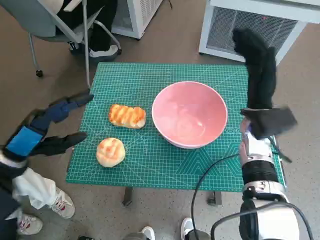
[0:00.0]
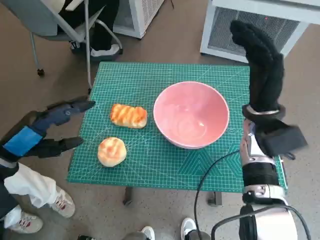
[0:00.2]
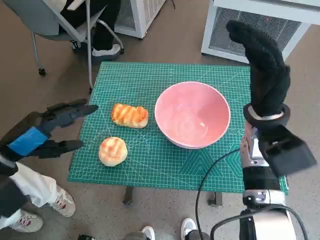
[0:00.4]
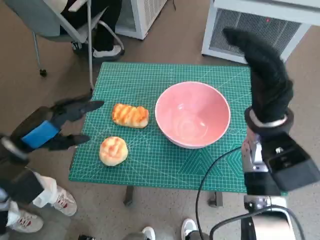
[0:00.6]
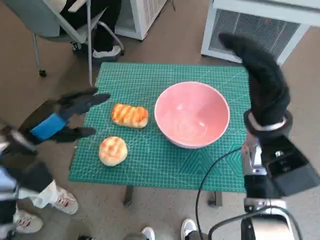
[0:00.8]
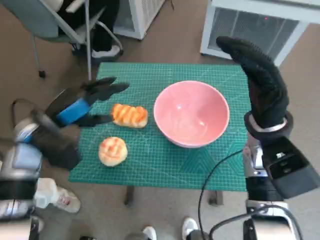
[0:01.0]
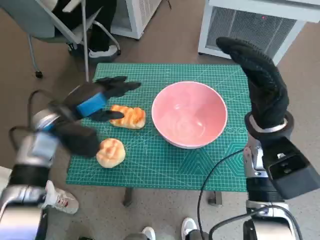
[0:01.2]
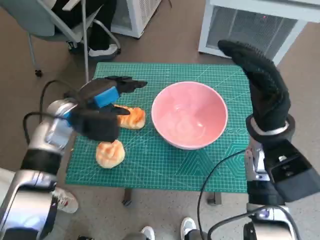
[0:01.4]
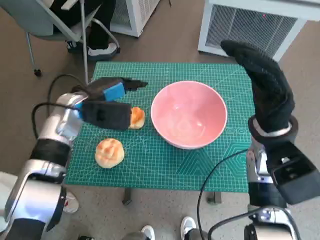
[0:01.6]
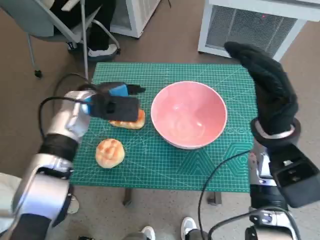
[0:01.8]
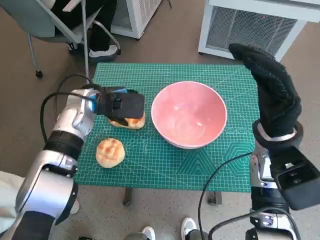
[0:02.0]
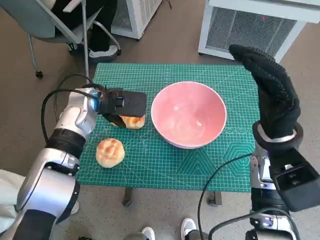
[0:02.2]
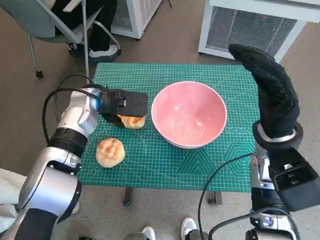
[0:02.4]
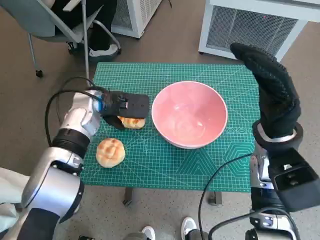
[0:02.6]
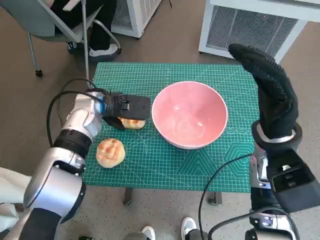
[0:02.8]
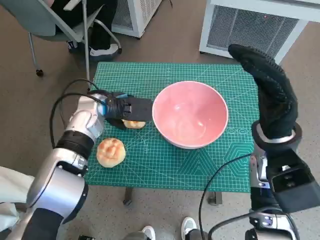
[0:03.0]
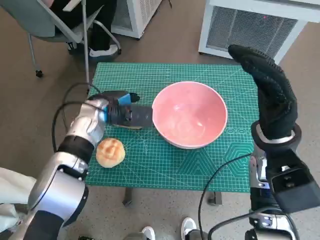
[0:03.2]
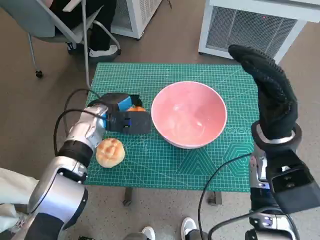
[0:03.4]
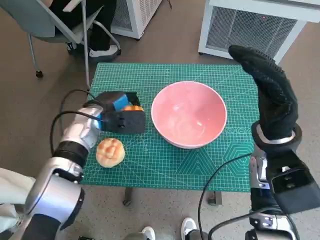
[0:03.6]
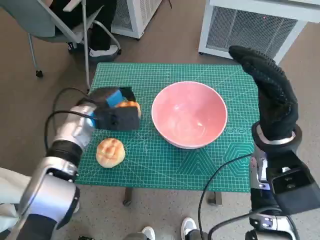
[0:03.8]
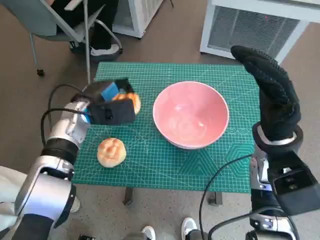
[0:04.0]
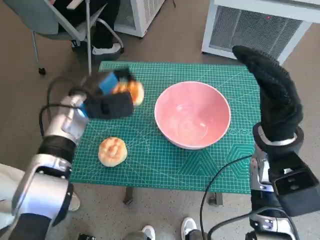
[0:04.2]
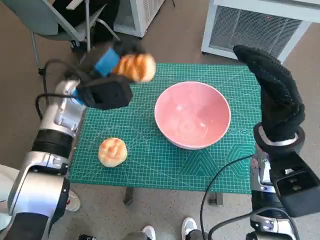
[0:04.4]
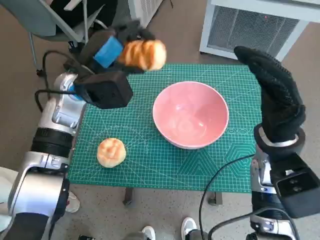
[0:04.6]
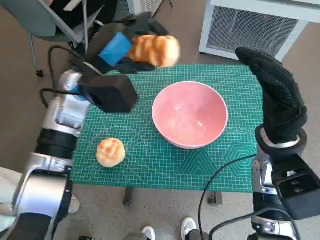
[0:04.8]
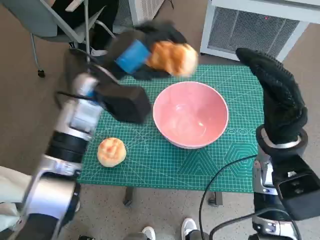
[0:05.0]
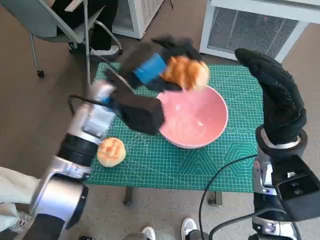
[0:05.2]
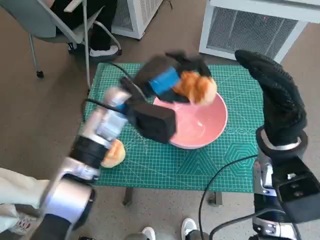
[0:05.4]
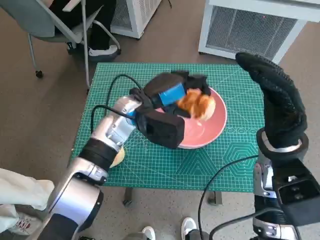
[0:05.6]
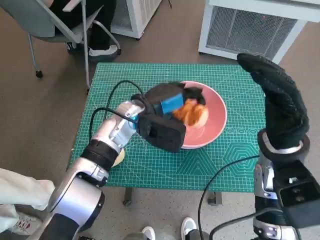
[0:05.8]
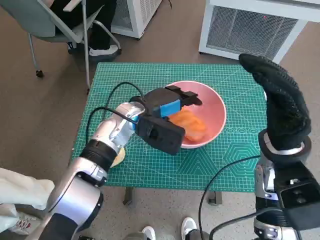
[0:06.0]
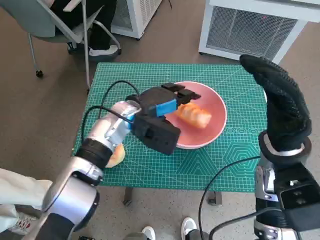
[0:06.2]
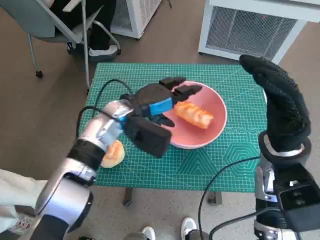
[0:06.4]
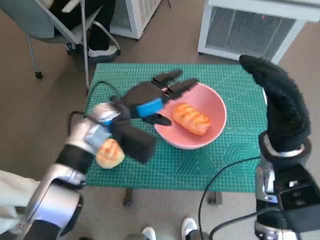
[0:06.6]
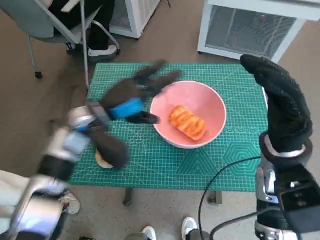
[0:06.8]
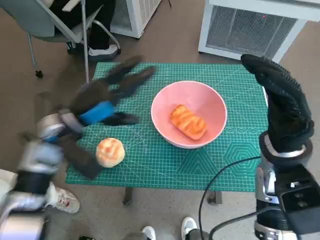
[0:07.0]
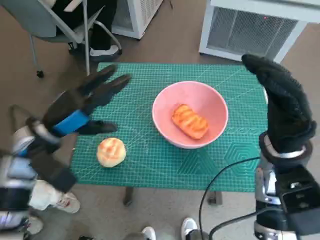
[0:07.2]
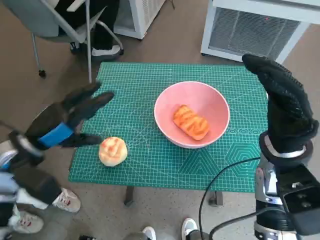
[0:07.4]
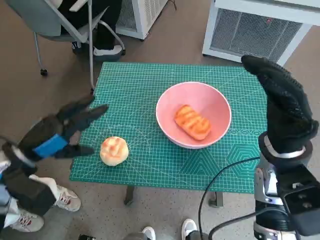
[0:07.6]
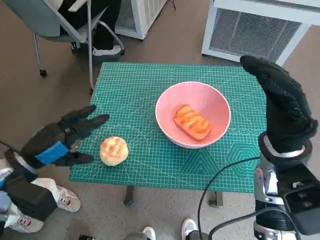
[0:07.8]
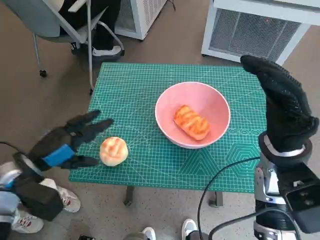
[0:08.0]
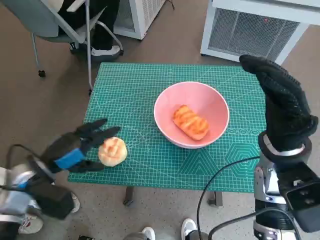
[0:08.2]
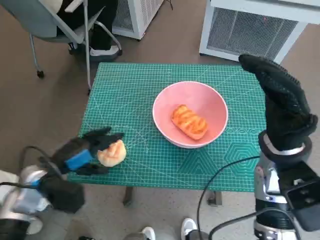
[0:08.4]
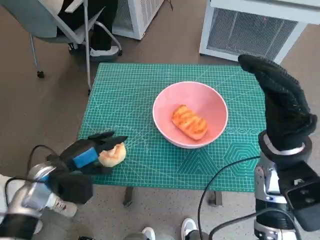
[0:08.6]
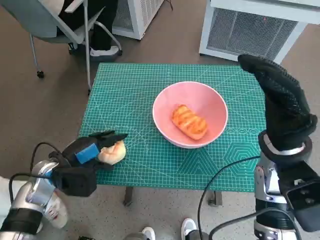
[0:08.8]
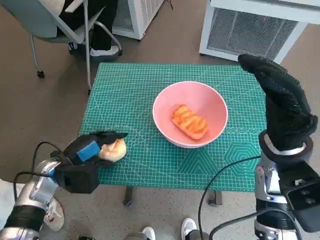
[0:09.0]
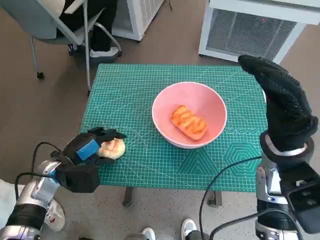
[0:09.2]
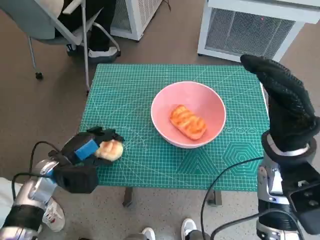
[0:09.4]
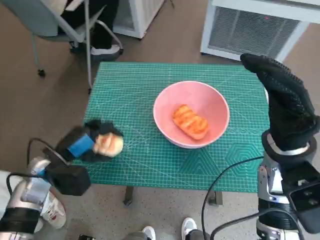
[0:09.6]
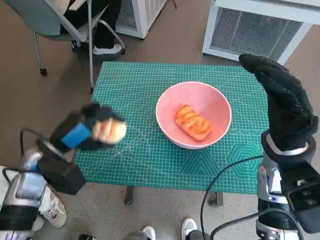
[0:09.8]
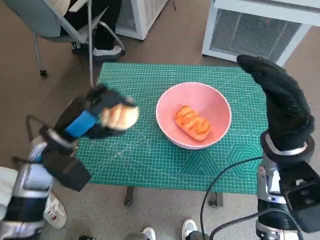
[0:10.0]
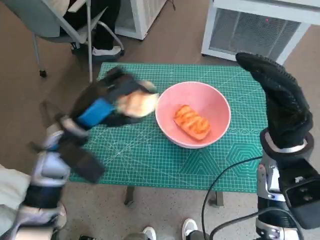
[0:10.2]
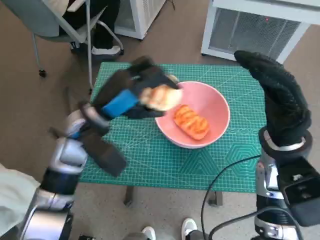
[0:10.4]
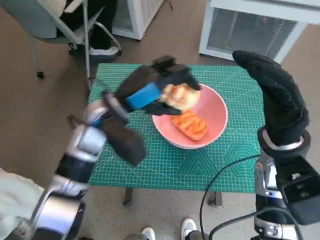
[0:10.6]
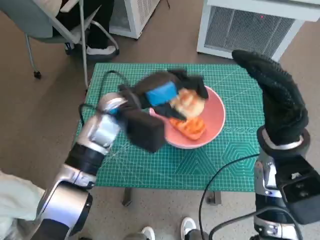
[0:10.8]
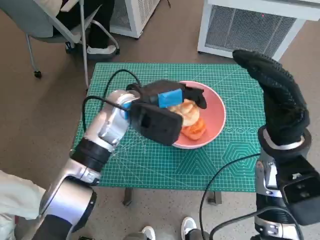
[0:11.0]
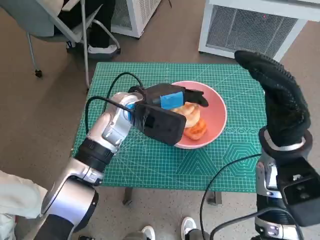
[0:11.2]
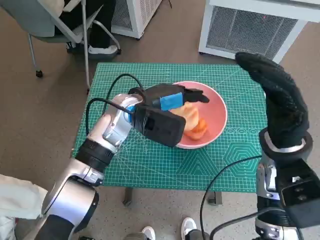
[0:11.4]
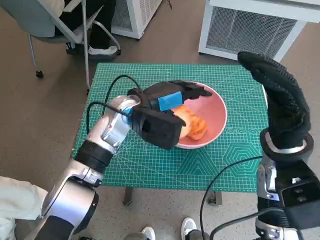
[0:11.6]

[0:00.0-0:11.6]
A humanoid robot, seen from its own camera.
Task of the whole recording: Push the bowl to the center of the table and put the bread into the bowl.
Step, 0.0 to 3.4 s: Grasp the long bread with left hand.
Step, 3.6 to 6.4 s: Place the long bread in pink bowl with left hand.
Step, 6.6 to 9.0 s: Grasp the round bread with left hand.
0.0 to 1.4 s: The right hand shifts by roughly 5 cm. Meanwhile the left hand shifts roughly 15 cm forward and to the right.
1.4 to 2.8 s: The left hand changes place by approximately 5 cm.
4.4 to 5.8 s: The left hand heads to the right, covering about 10 cm.
5.8 to 7.2 s: The left hand travels to the left and backward by approximately 15 cm.
7.2 to 8.8 s: The left hand moves downward, about 10 cm.
8.8 to 10.2 s: The left hand goes some 10 cm upward and to the right.
10.2 to 11.6 s: The left hand moves to the right and forward, about 15 cm.

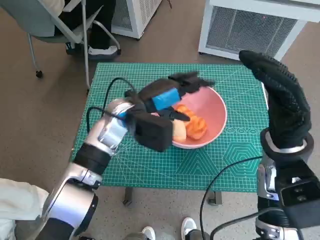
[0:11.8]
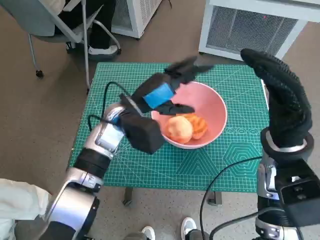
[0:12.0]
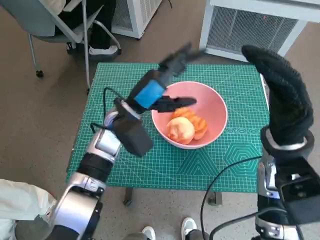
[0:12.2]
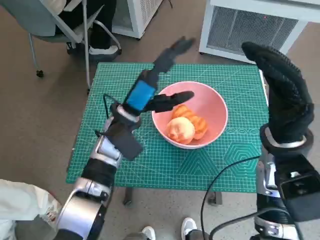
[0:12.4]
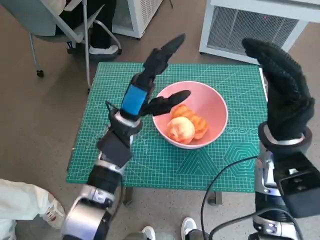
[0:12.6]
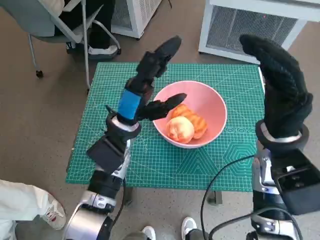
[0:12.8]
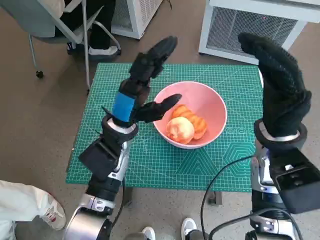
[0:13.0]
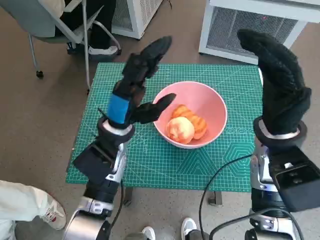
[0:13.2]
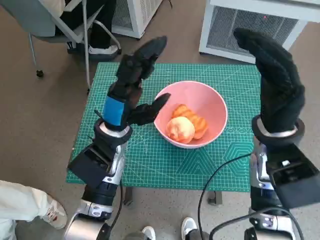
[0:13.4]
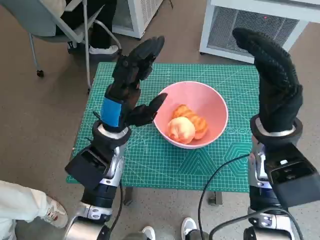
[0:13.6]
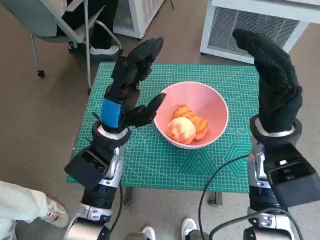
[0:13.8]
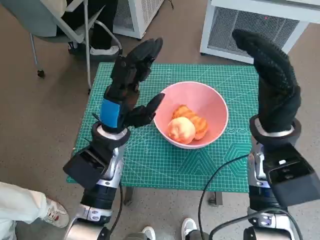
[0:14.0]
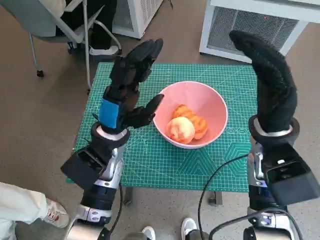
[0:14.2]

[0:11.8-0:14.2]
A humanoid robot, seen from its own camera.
Task of the whole recording: Push the bowl to the center of the table and put the bread into the bowl.
11.8 to 13.0 s: The left hand shifts by roughly 5 cm.

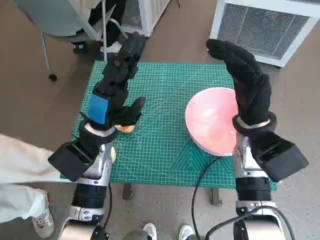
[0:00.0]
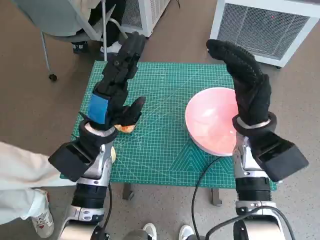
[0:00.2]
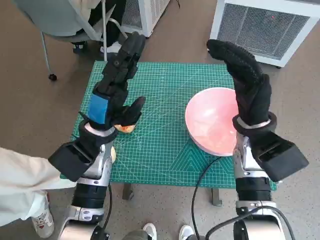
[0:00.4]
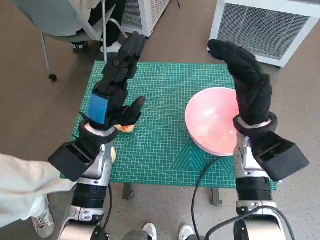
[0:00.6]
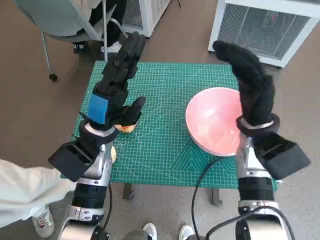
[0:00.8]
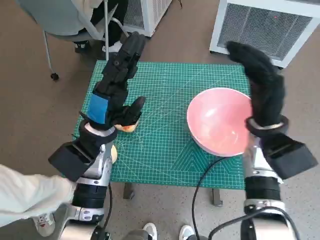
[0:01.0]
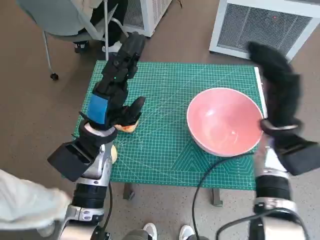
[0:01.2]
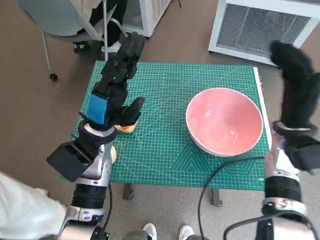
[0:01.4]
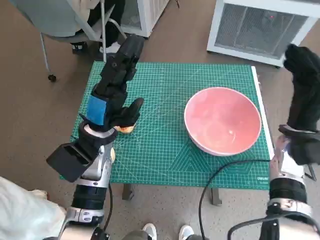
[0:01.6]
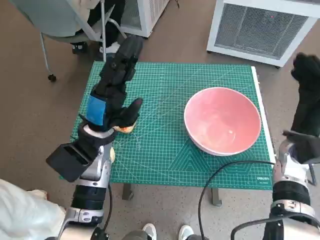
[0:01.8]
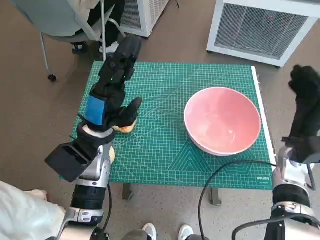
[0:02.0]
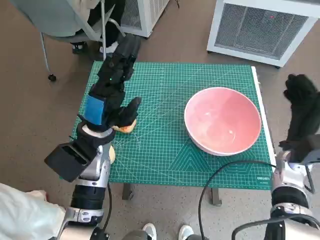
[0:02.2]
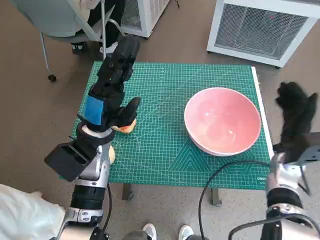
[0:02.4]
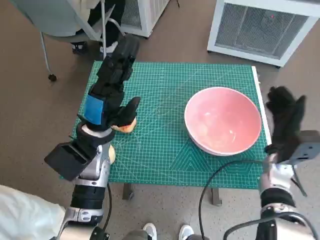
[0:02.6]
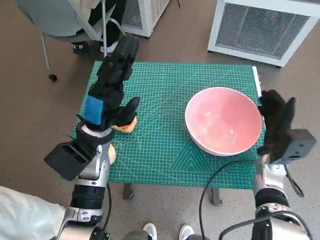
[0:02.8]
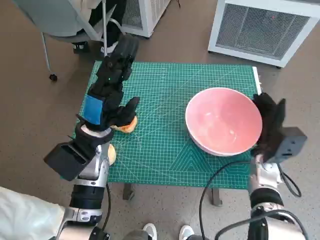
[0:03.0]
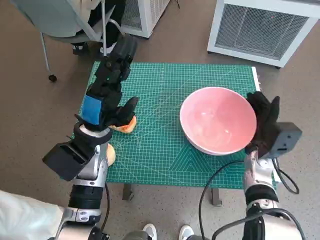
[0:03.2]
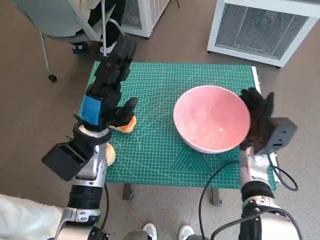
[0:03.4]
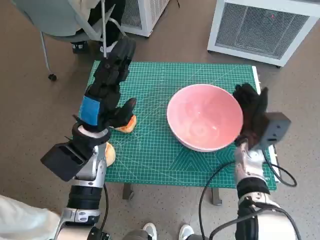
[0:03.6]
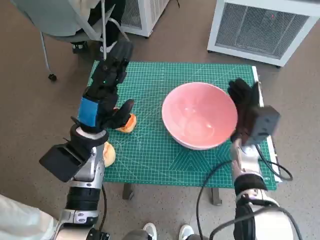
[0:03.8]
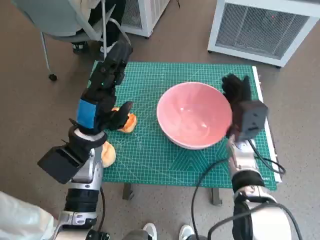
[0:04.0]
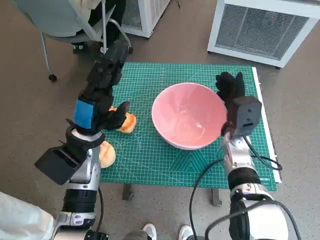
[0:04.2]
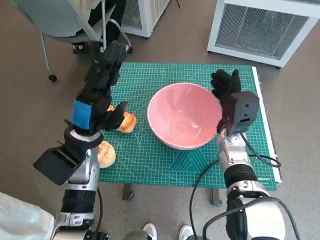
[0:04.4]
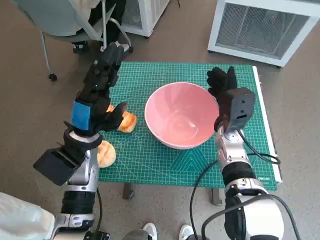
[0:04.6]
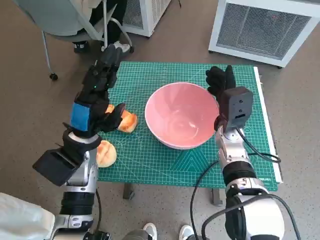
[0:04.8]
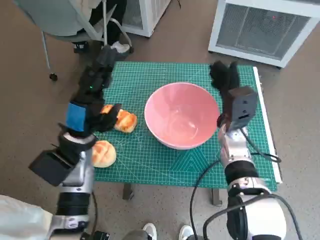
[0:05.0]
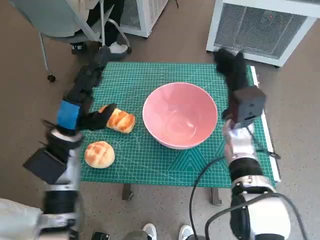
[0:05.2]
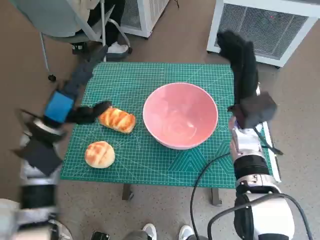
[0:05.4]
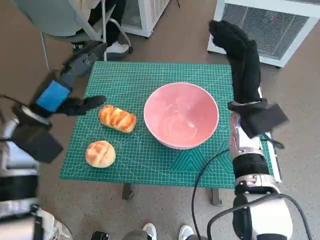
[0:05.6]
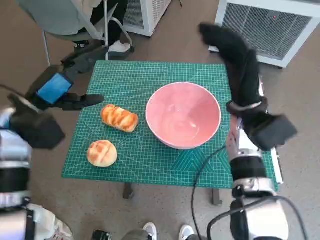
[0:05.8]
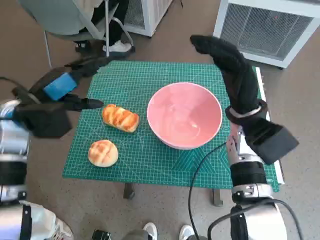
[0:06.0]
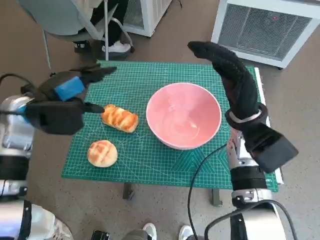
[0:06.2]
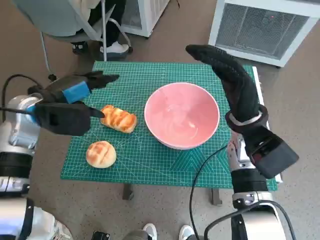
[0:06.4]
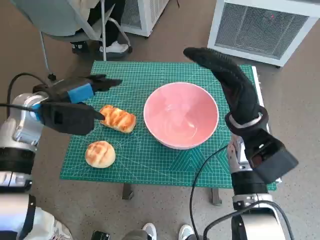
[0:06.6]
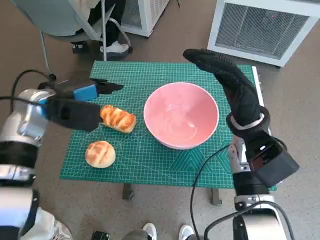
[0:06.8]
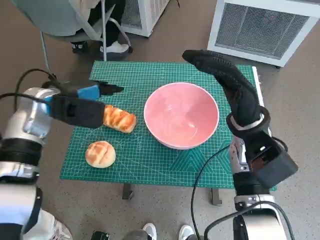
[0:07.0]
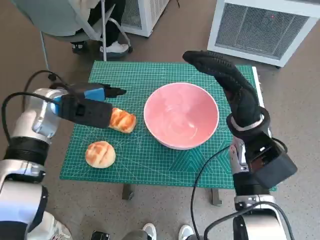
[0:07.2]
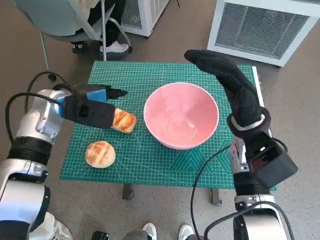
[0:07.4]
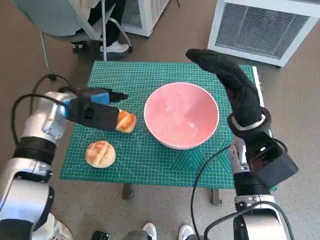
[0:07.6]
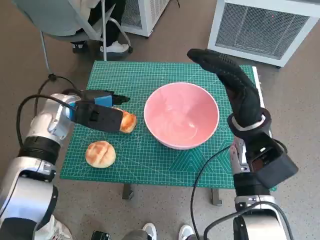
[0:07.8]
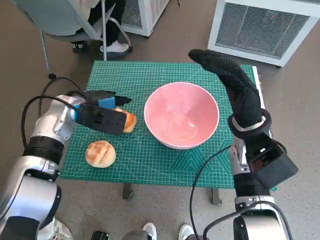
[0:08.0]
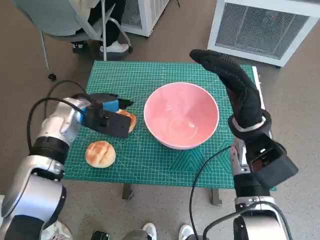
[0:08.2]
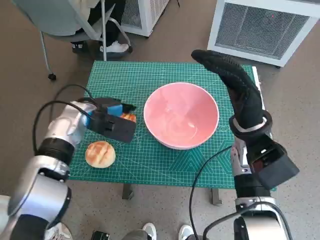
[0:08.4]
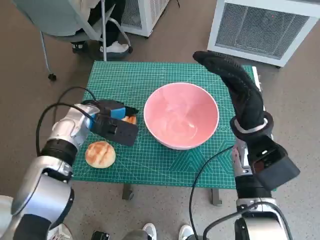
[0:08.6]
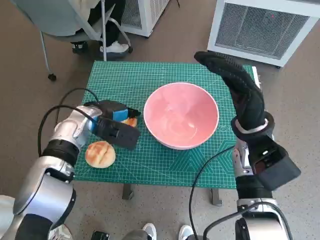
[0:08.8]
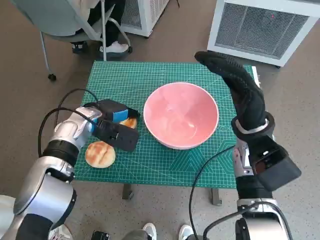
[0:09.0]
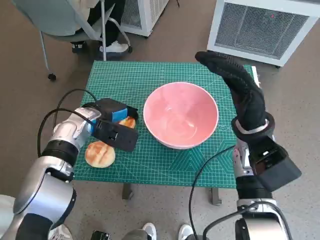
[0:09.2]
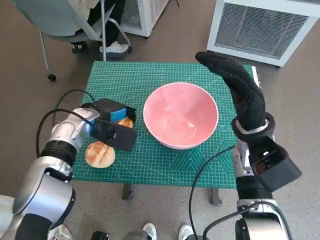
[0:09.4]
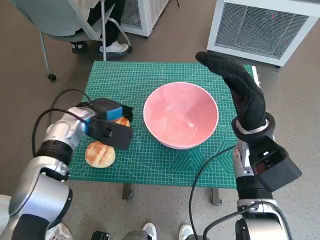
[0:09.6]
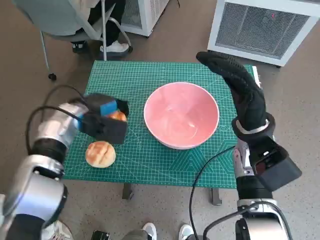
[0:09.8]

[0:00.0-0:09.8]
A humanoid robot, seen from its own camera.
Task of the whole recording: Push the bowl to the center of the table and put the bread into the bowl.
Step, 0.0 to 5.0 s: Move the pink bowl to the center of table with right hand.
Step, 5.2 to 9.6 s: Grasp the long bread with left hand.
1.4 to 2.8 s: The right hand shifts some 10 cm downward.
2.8 to 4.2 s: The right hand goes about 10 cm to the left.
4.2 to 5.6 s: The right hand travels upward by some 10 cm. The left hand shifts about 10 cm to the left and upward.
5.6 to 7.0 s: The left hand moves forward, some 5 cm.
7.0 to 8.4 s: The left hand shifts some 5 cm downward.
8.4 to 9.8 s: There are only small adjustments of the hands.
